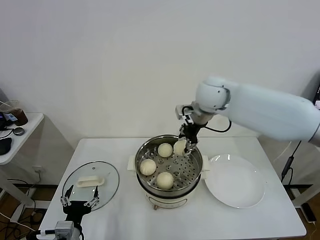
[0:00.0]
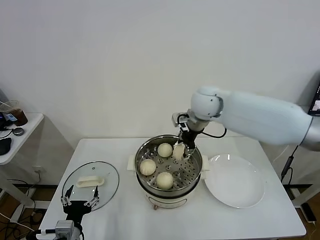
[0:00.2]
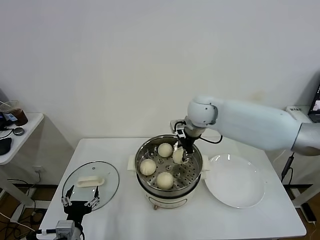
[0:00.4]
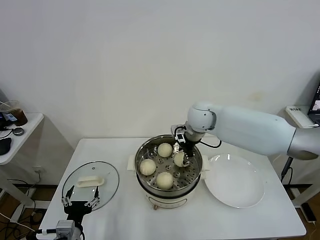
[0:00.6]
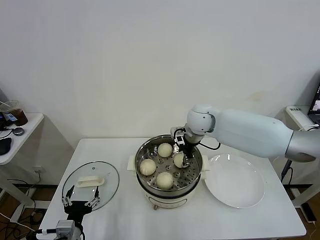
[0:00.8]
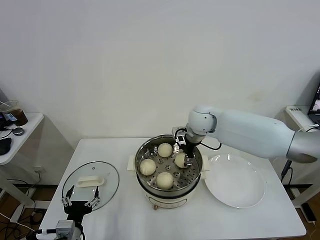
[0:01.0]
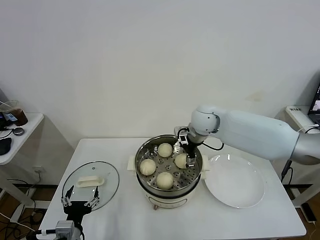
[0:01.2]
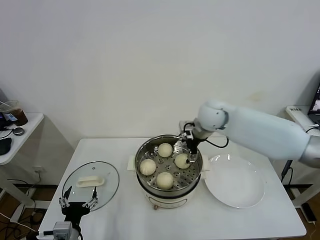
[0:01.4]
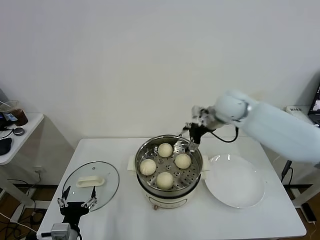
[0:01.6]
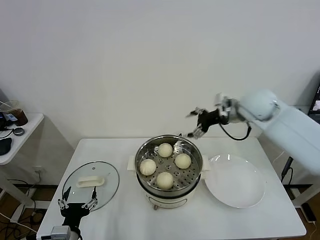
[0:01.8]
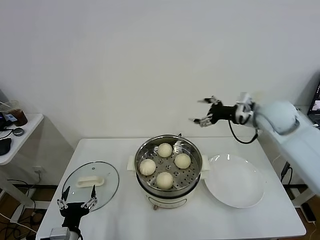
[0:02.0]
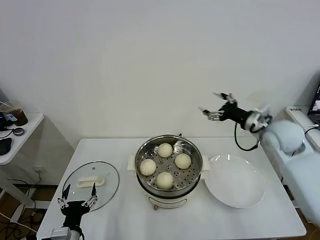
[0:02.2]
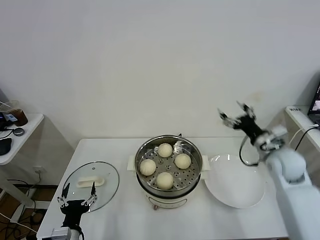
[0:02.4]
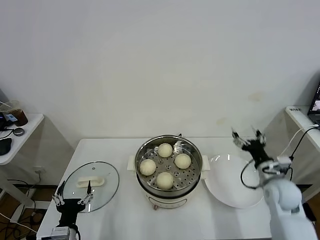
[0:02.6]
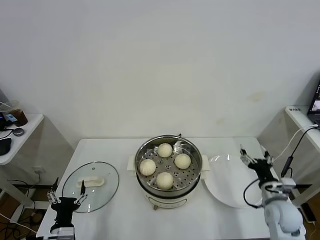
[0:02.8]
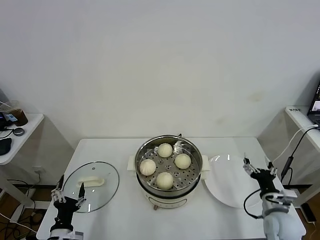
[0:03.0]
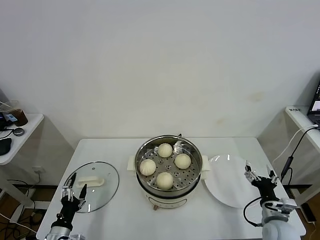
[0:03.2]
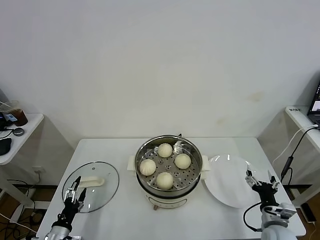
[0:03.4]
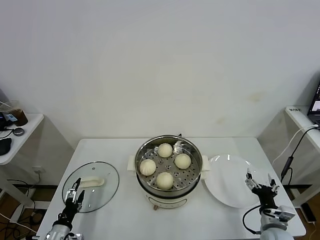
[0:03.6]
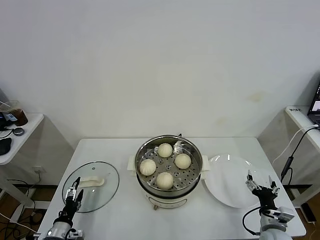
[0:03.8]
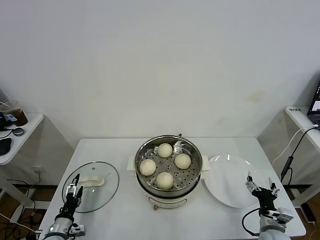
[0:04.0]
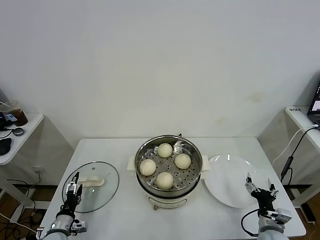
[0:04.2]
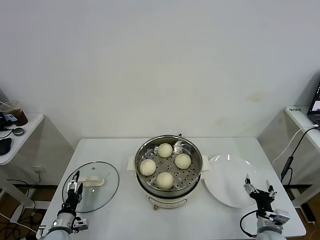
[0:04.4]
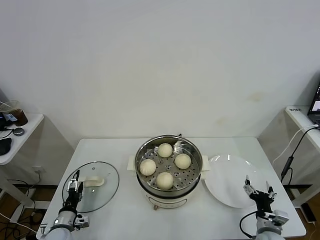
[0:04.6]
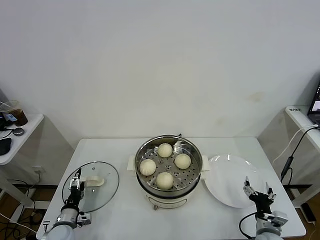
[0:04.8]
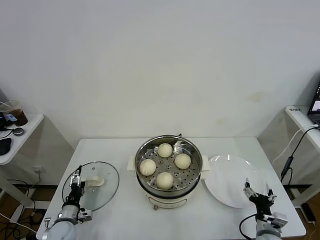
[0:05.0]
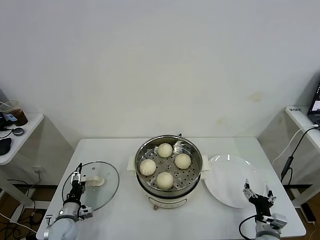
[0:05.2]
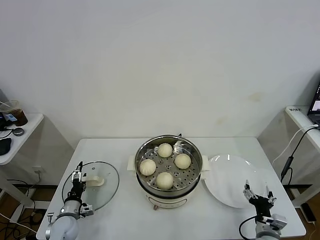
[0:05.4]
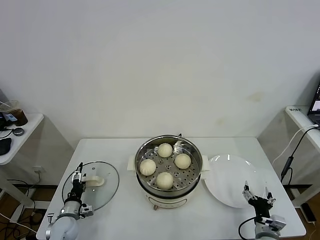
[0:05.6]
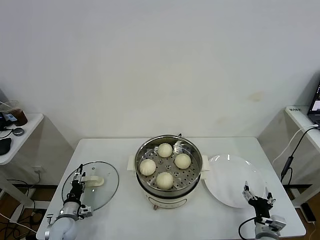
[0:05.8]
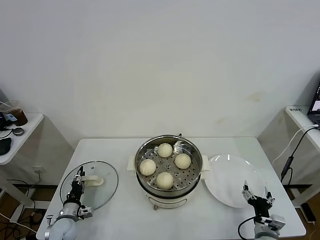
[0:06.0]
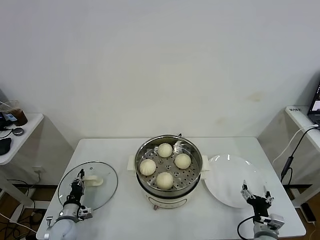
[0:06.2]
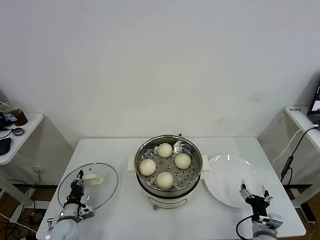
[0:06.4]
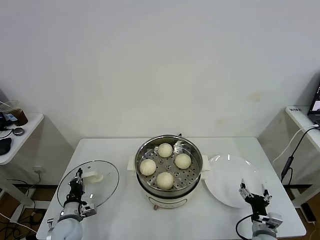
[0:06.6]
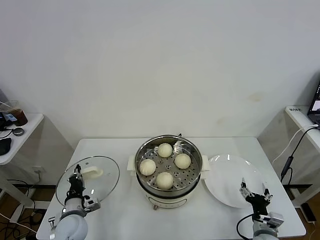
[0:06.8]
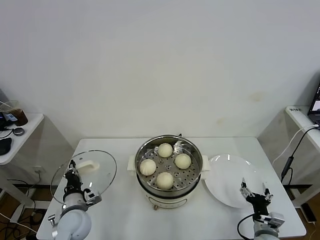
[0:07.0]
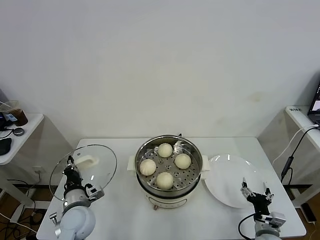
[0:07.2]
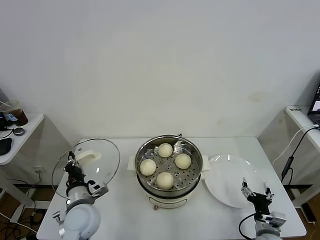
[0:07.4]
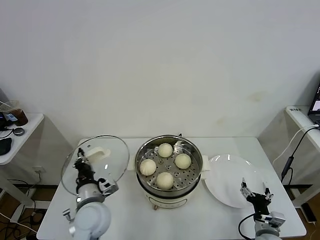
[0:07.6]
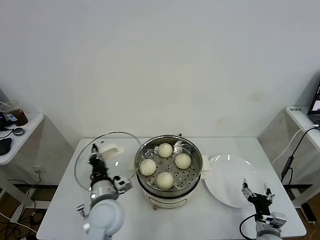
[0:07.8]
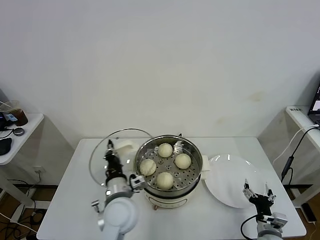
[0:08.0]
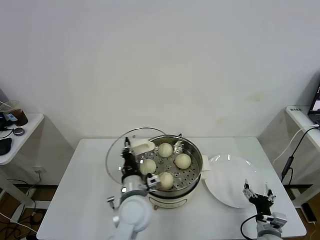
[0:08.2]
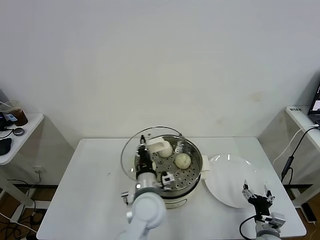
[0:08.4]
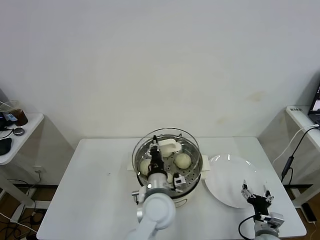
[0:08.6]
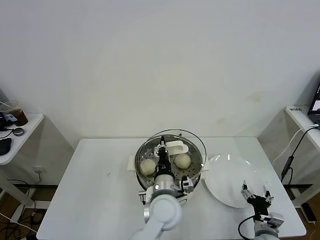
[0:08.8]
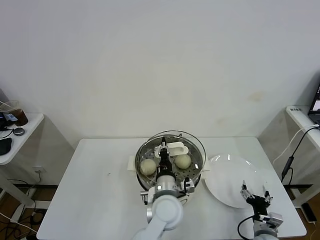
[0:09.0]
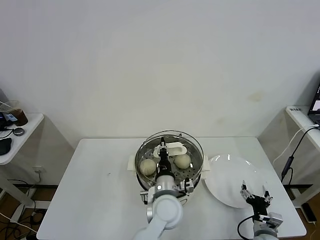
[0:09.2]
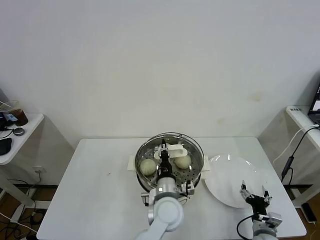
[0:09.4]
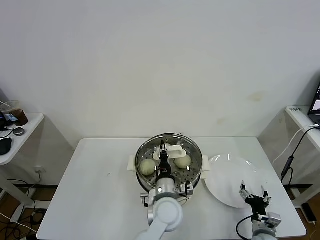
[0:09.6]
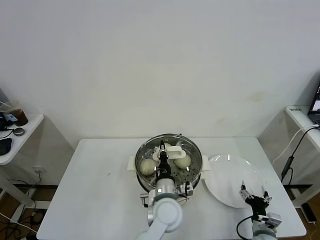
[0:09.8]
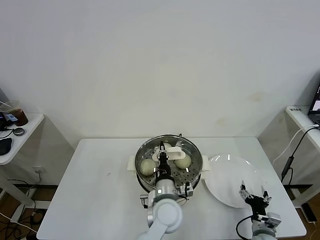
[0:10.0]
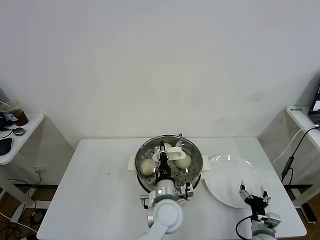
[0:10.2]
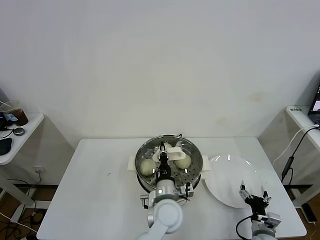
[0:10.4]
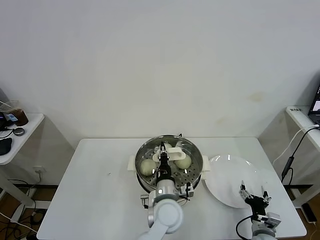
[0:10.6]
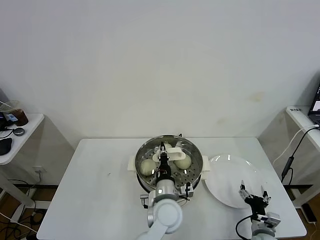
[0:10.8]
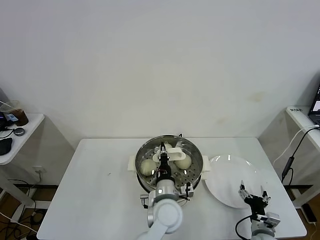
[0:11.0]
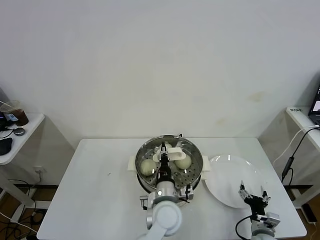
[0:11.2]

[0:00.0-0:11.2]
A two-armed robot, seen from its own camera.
Task of the whole recording: take steamed baozi put them in steamer.
Step, 0.0 to 1.4 s: Place the baozi on the steamer with right gripper.
Step, 1.6 to 6.4 s: Grasp the pot lid with left gripper.
0.0 to 1.6 s: The right gripper goes some 5 cm to the right, and opens.
1.6 to 3.2 s: The left gripper moves downward and to the left, roughly 10 cm. Meanwhile the right gripper moves backward, downward and to the right, approximately 40 cm.
3.2 to 4.8 s: The left gripper is displaced forward and downward by roughly 10 cm. Meanwhile the right gripper travels downward by roughly 5 cm.
4.8 to 6.4 s: The left gripper closes.
6.4 to 8.0 s: The left gripper moves to the right and upward, approximately 30 cm.
8.0 to 9.6 s: The left gripper heads to the right, covering approximately 15 cm.
9.6 to 11.2 s: Both grippers stay about where they are.

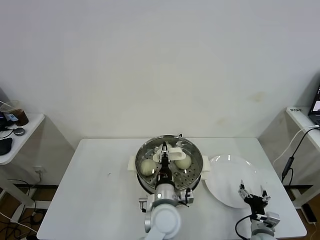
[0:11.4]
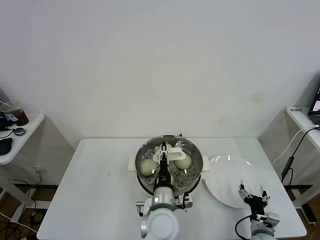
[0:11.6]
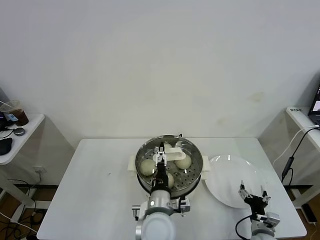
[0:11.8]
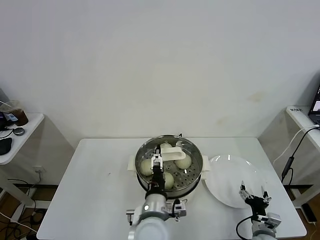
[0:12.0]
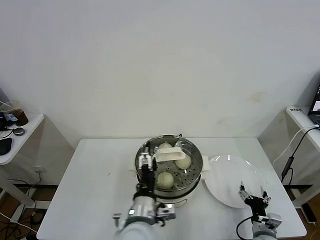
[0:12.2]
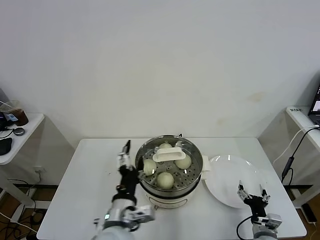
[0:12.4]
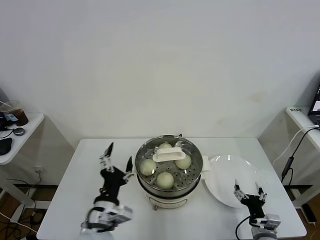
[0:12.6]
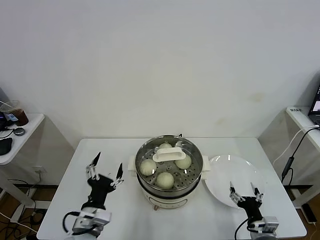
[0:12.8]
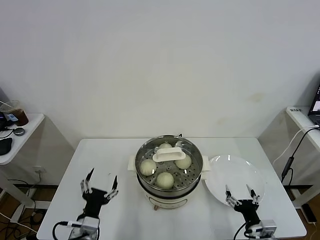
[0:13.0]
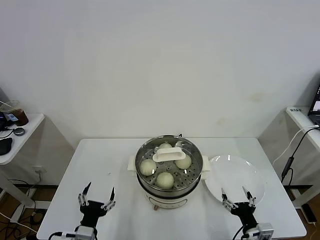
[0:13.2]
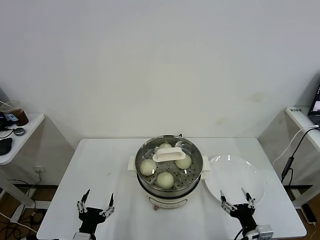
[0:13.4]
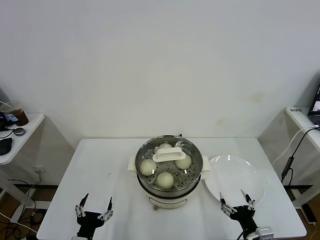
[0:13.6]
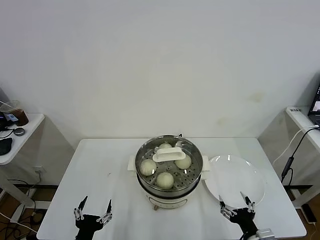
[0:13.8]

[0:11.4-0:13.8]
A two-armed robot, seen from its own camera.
Task of the whole recording: take steamed baozi put them in steamer.
11.4 to 12.6 s: The left gripper travels to the left, backward and upward by about 20 cm, and opens its fingers.
12.6 to 13.8 s: The right gripper is displaced backward and upward by about 10 cm; the left gripper goes approximately 15 cm downward, to the left and backward.

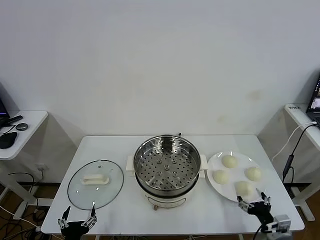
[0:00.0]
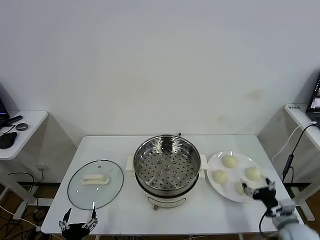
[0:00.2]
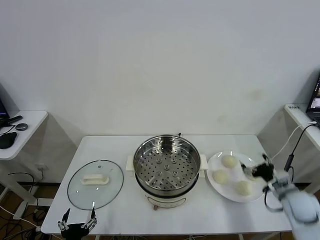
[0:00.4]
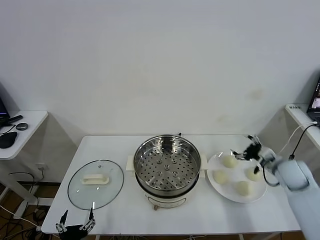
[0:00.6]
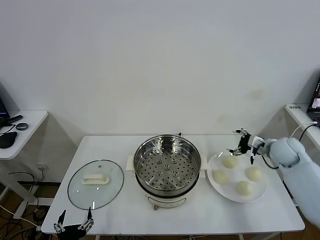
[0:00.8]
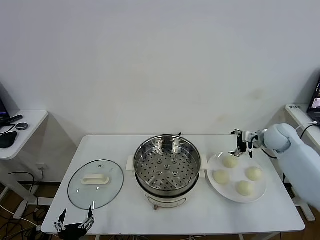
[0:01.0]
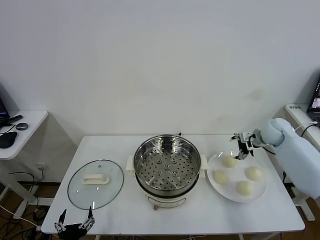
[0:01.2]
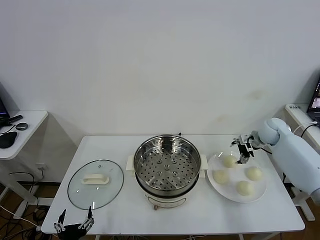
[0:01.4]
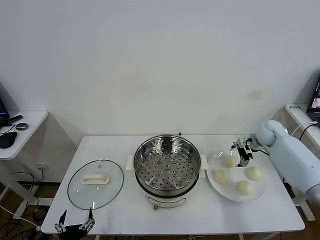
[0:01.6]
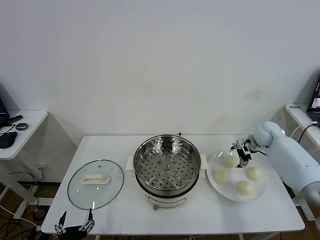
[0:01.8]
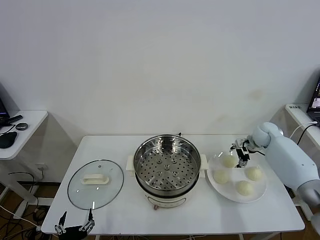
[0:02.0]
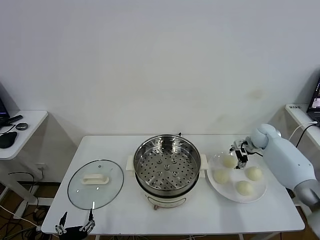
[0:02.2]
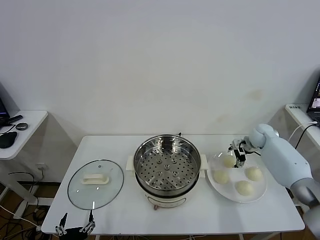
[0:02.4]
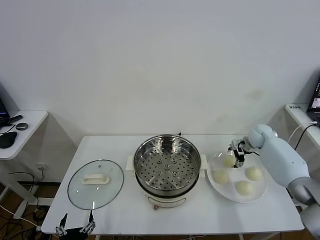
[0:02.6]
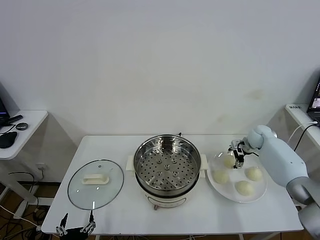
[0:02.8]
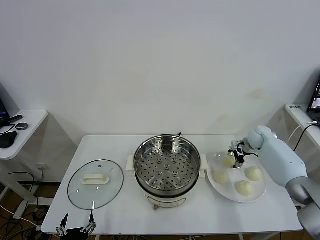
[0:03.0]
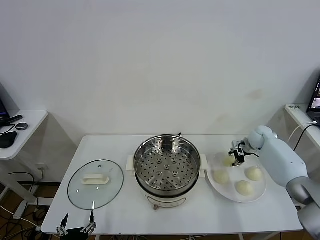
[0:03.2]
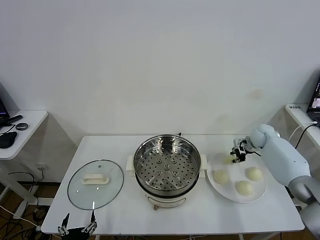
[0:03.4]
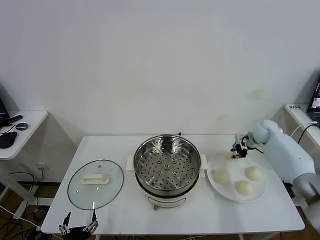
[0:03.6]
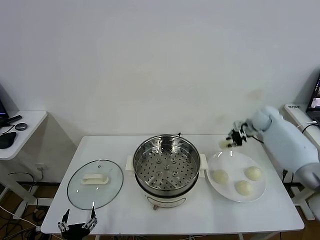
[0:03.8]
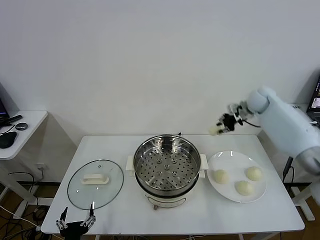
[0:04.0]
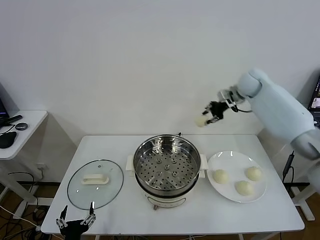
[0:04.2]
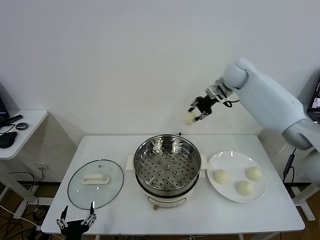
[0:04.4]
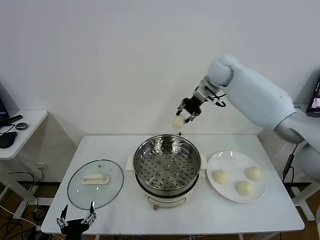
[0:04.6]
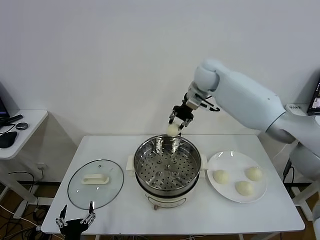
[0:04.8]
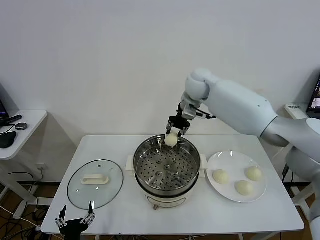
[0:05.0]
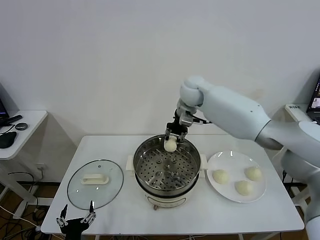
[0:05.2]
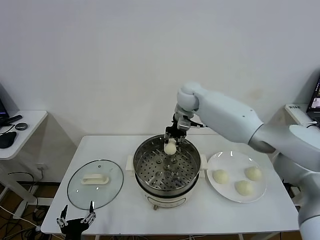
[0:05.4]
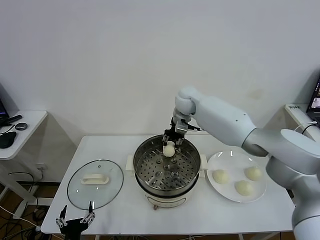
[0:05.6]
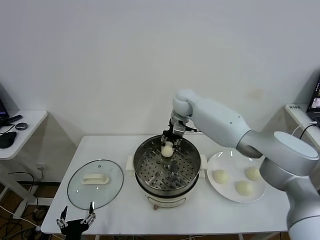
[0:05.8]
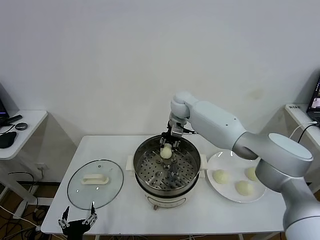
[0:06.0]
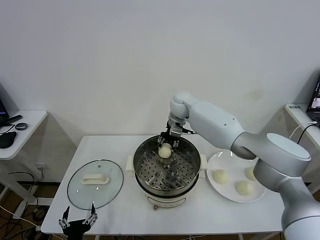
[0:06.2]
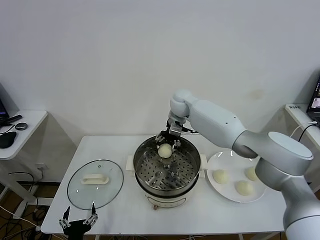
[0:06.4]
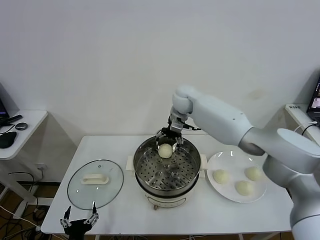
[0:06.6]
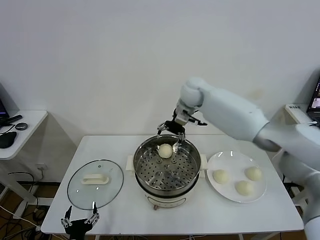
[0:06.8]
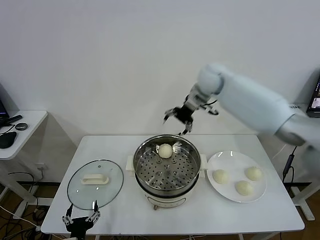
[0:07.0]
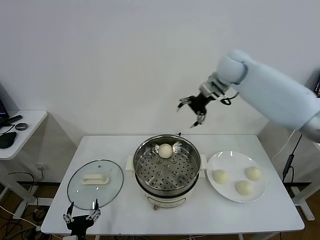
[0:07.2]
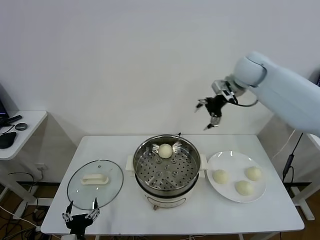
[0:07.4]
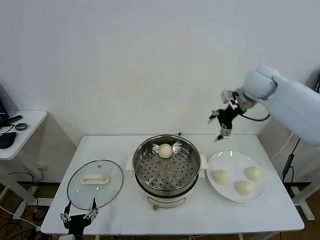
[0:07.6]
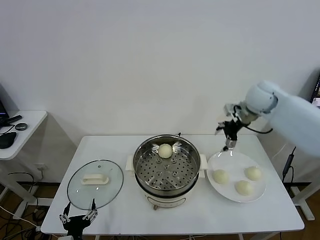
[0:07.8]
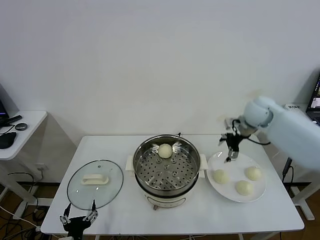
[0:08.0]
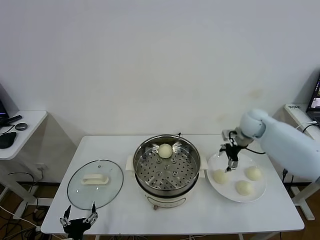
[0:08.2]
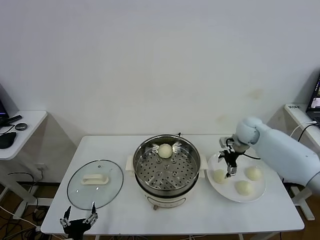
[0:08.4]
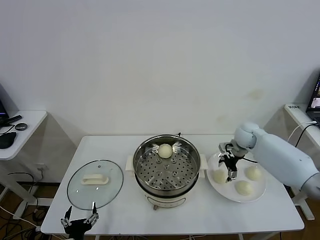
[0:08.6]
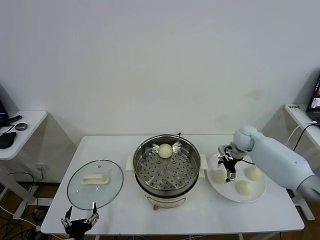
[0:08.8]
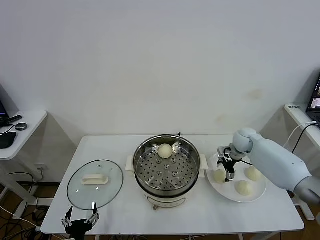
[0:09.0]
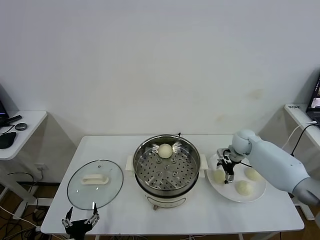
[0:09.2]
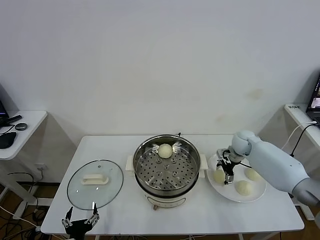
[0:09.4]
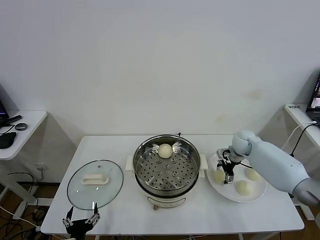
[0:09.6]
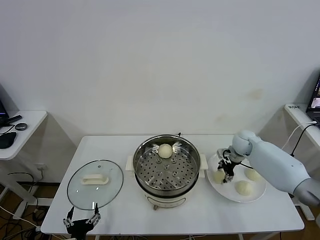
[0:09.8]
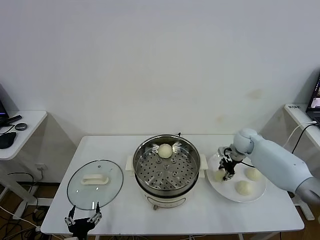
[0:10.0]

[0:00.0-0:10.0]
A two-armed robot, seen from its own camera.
Task of the whole recording: take steamed baozi put them in steamer.
Step, 0.0 to 3.0 s: Grasp the baozi in the plate with right gripper.
Step, 3.2 to 6.4 s: Place the baozi on the steamer with right gripper.
Step, 6.8 to 9.8 s: Grasp the baozi in the plate with right gripper.
1.4 to 2.8 s: The right gripper travels downward by about 5 cm.
2.8 to 4.2 s: The right gripper shifts some 25 cm upward and to the left, and closes its fingers.
4.2 to 5.8 s: The right gripper heads to the left, covering roughly 20 cm.
5.8 to 7.2 s: The right gripper travels to the right and upward by about 20 cm, and opens its fingers.
7.2 to 8.6 s: The right gripper heads downward and to the right, covering roughly 25 cm.
8.6 to 10.0 s: The right gripper closes up.
